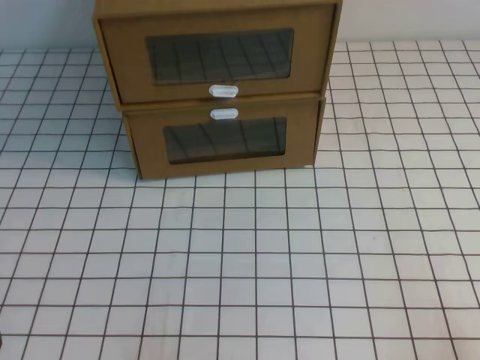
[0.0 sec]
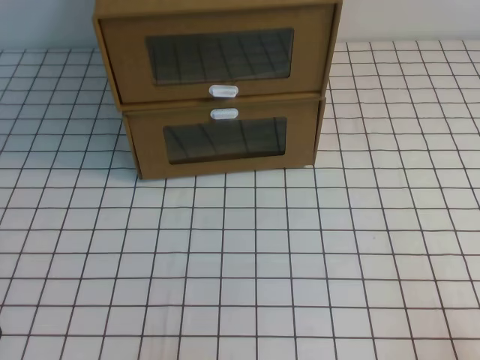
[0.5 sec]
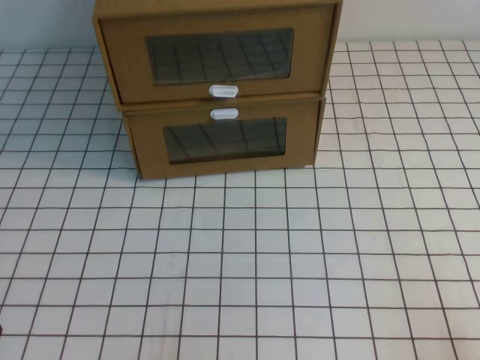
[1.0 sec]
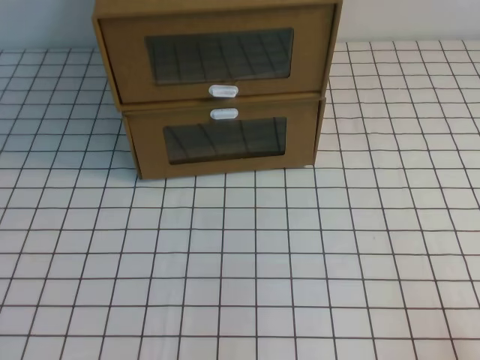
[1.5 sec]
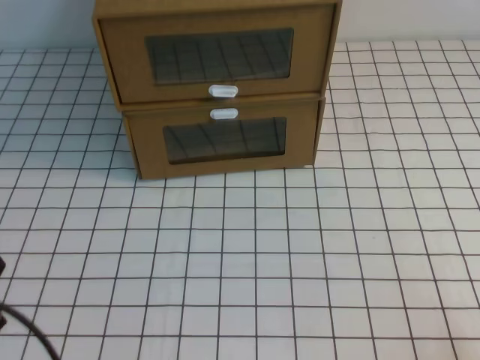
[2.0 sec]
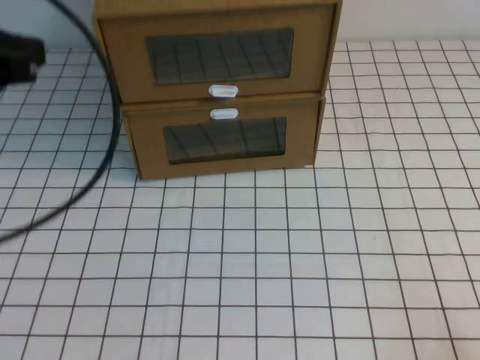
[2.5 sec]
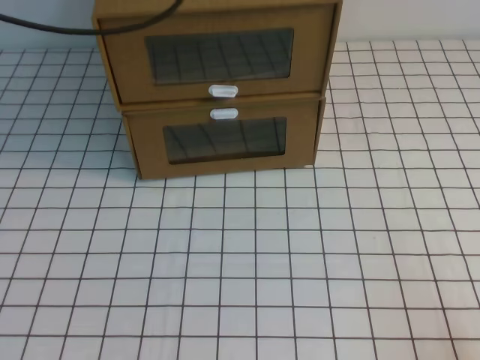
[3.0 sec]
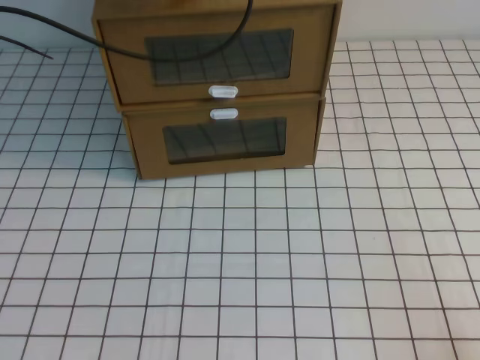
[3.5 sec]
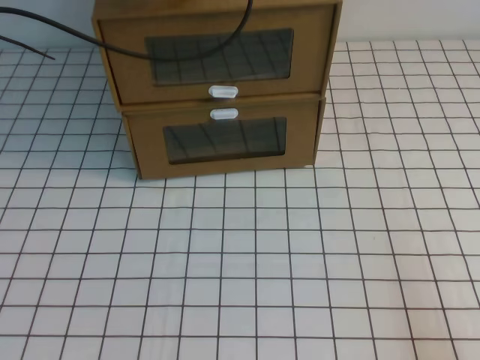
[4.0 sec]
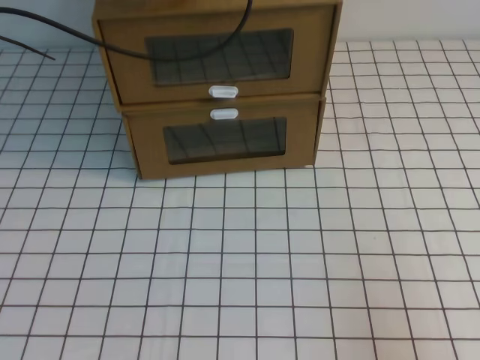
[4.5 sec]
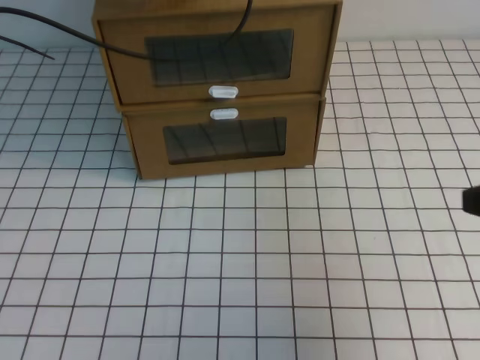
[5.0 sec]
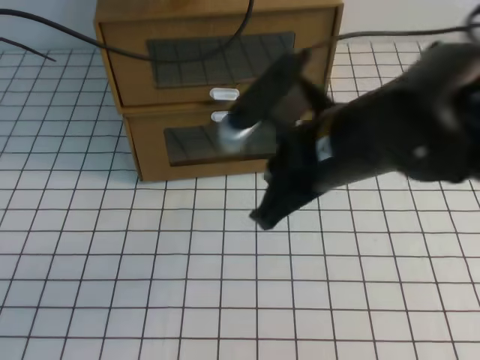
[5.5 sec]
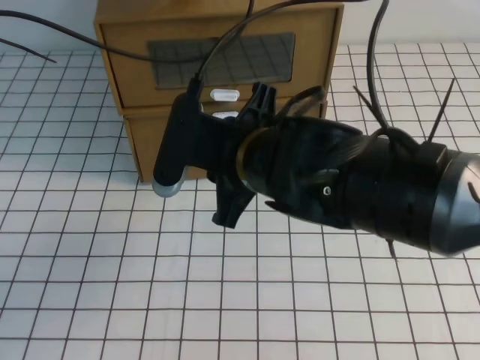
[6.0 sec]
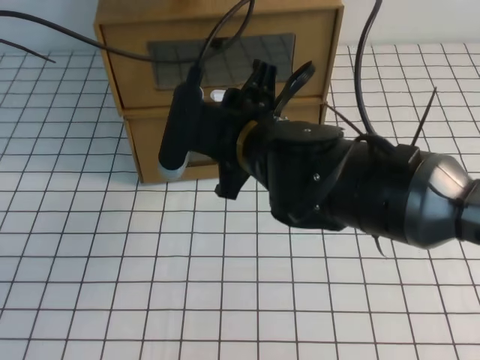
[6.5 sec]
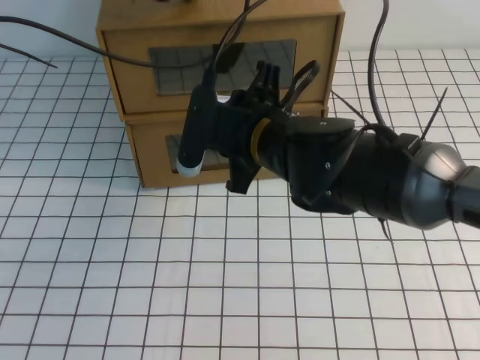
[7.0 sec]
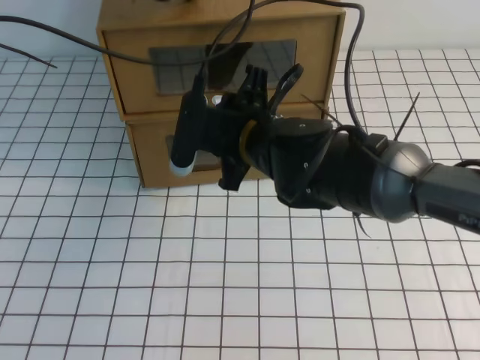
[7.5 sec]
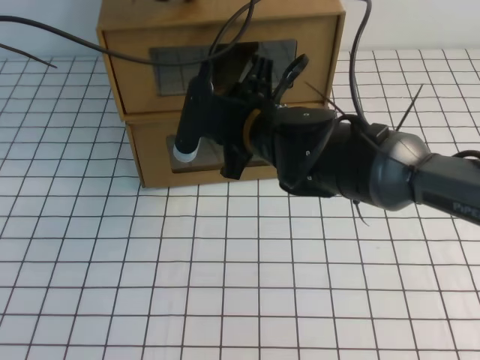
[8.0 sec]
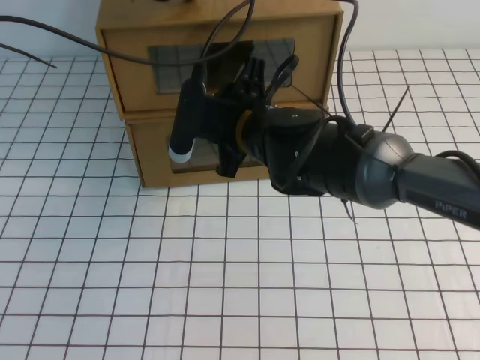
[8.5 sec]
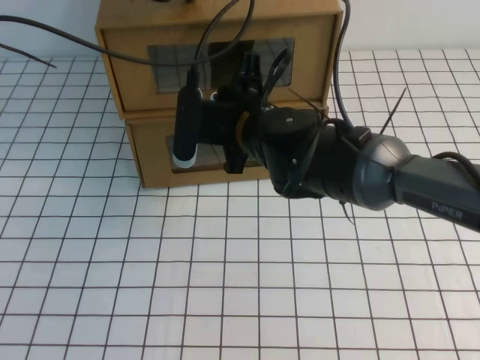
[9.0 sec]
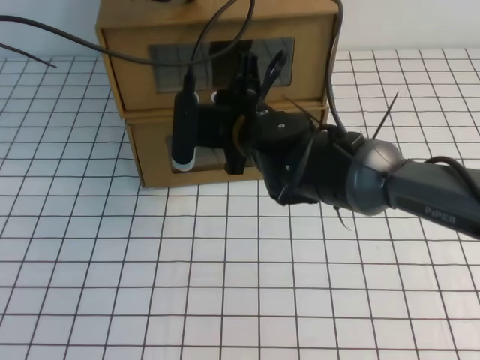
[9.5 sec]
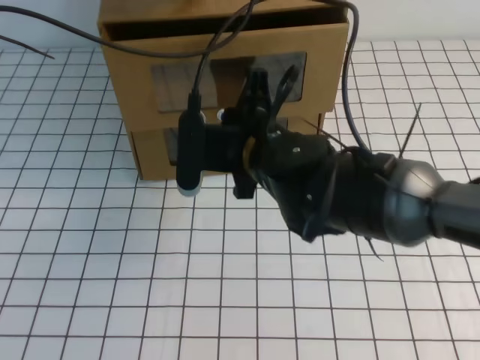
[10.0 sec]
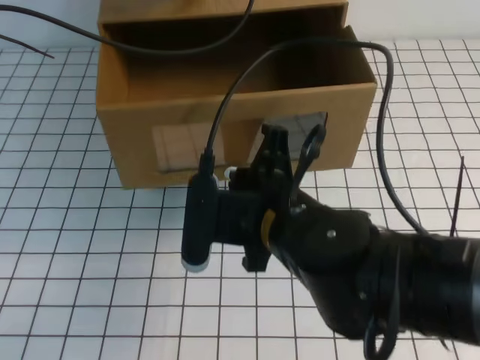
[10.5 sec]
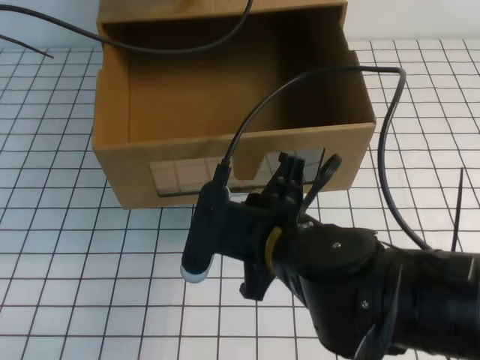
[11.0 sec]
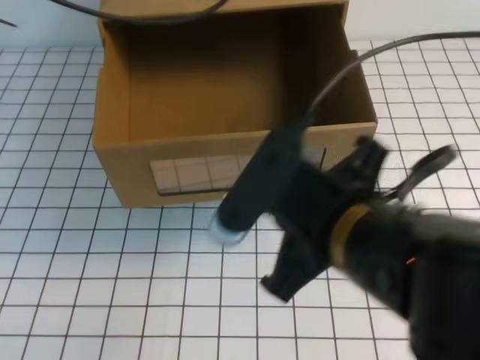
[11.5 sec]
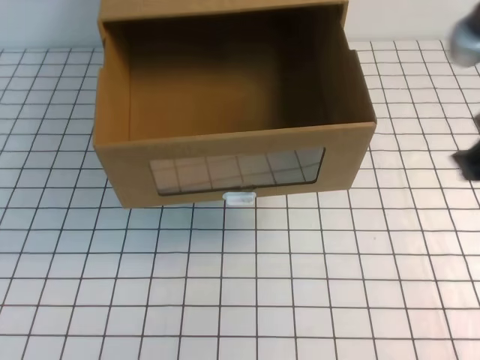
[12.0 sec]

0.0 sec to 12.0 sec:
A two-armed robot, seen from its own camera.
Task of the whole recording: open the shoebox on the white tablecloth.
2.0 sec to 4.0 sec: The left gripper heads forward and upward, covering roughly 40 cm.
4.0 sec to 6.0 sec: The right gripper travels to the left and forward by roughly 35 cm.
6.0 sec to 8.0 sec: The right gripper moves forward, roughly 10 cm, and opens up.
8.0 sec to 10.0 sec: The right gripper closes up.
10.0 sec to 12.0 sec: The right gripper is displaced to the right, backward and upward by approximately 25 cm. The left gripper heads upward and backward, covering roughly 20 cm.

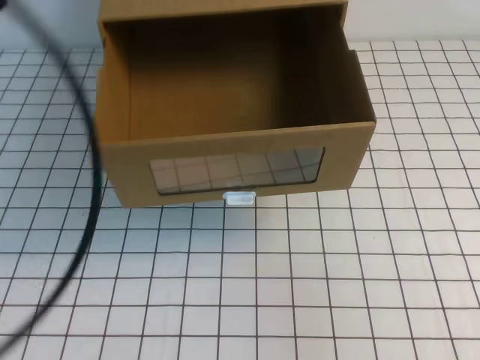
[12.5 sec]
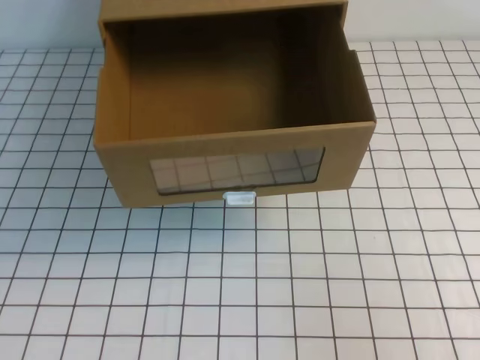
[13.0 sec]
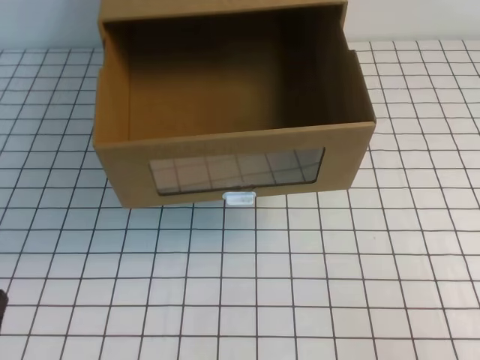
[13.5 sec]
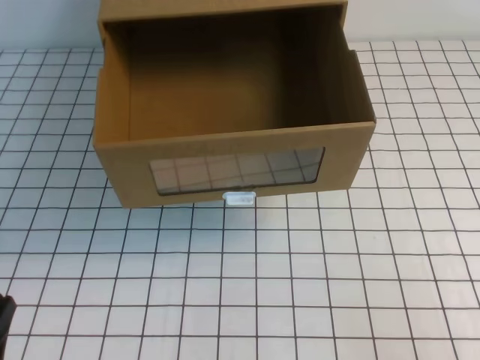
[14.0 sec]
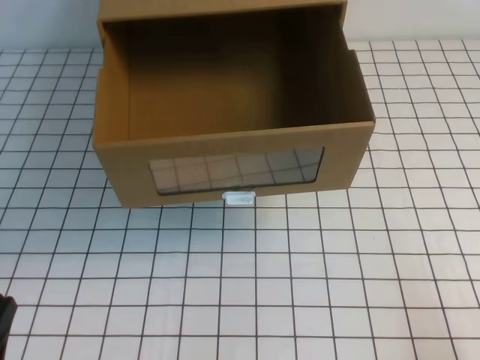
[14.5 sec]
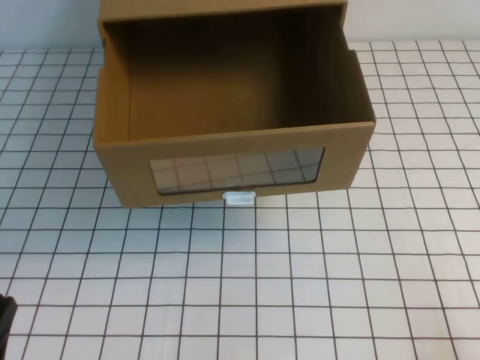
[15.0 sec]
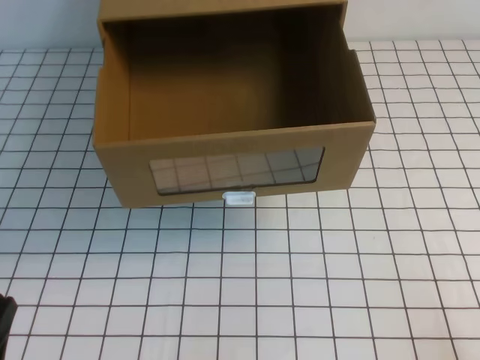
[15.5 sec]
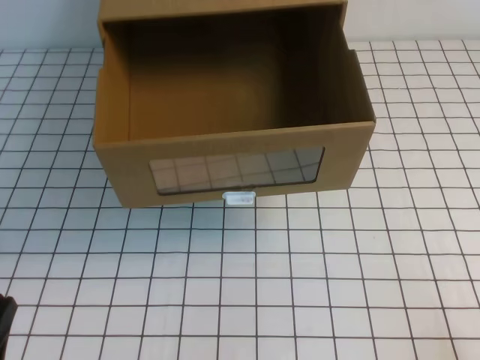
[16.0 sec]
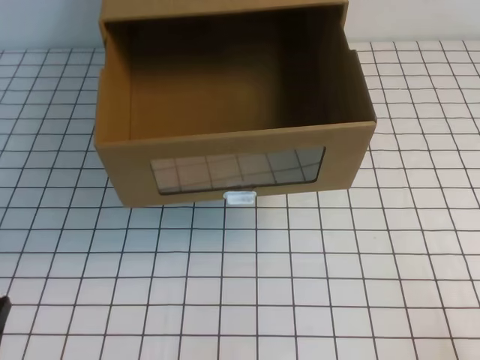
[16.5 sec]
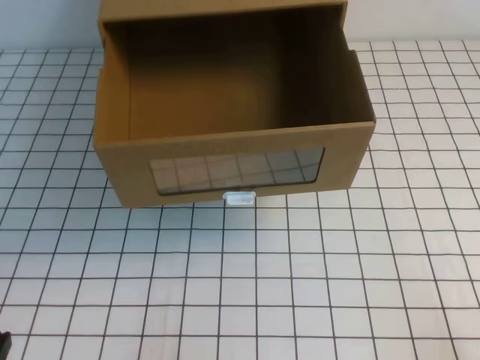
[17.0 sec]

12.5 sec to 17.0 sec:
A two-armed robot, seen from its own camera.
Task of the whole recording: open the shoebox on the white tablecloth.
Step, 12.5 sec to 17.0 sec: Open the shoe box.
12.5 sec to 14.5 sec: The left gripper heads downward and backward, covering approximately 35 cm. Meanwhile the right gripper shifts some 20 cm downward.

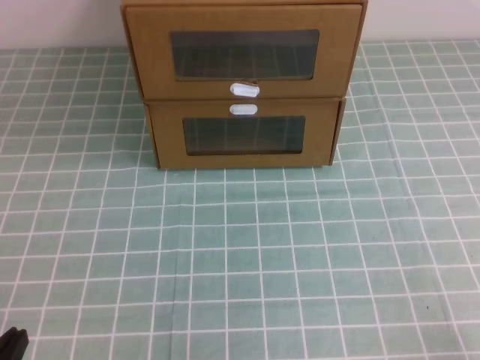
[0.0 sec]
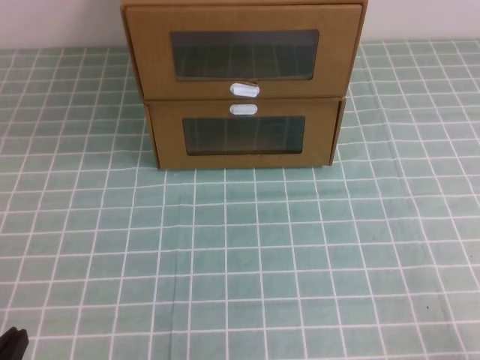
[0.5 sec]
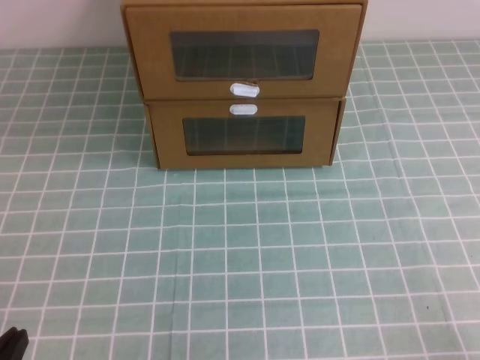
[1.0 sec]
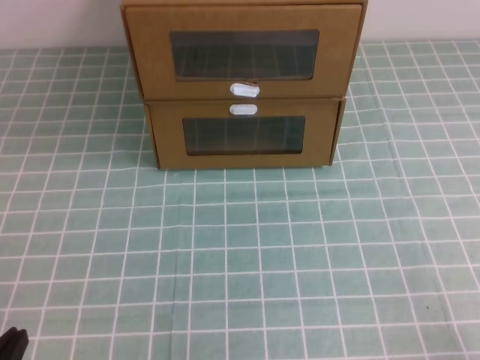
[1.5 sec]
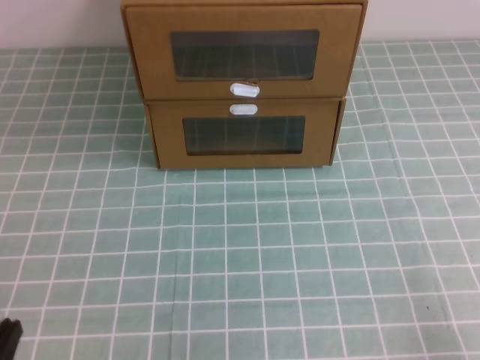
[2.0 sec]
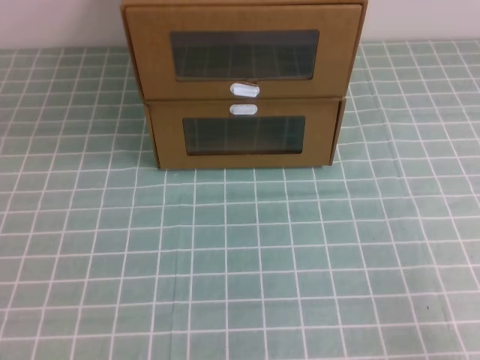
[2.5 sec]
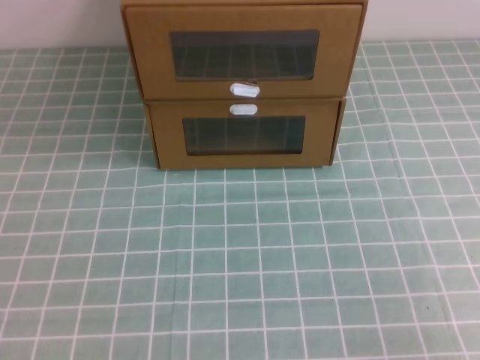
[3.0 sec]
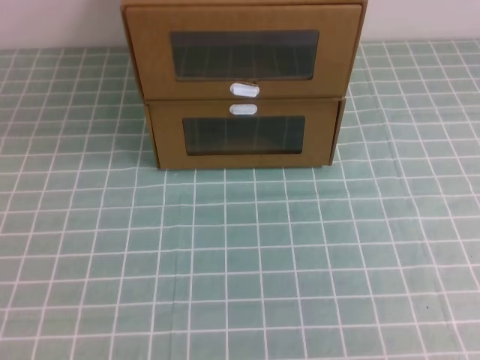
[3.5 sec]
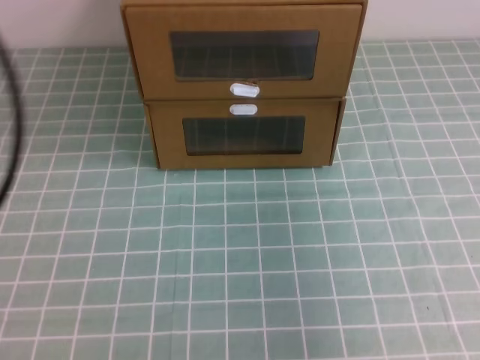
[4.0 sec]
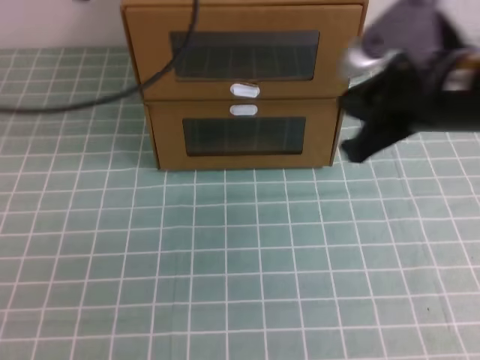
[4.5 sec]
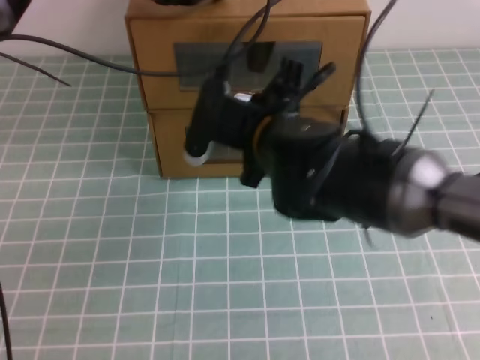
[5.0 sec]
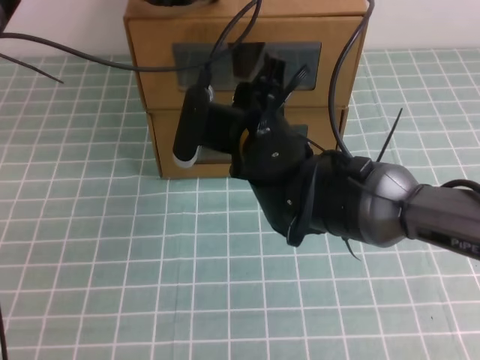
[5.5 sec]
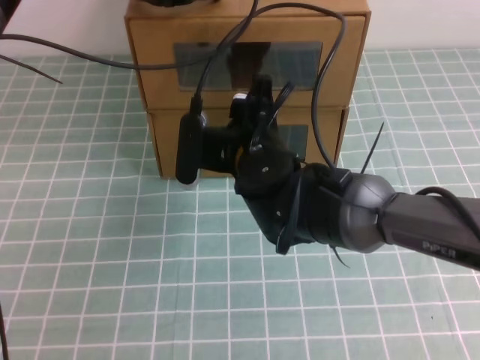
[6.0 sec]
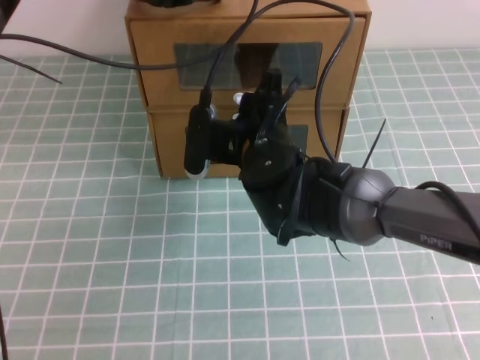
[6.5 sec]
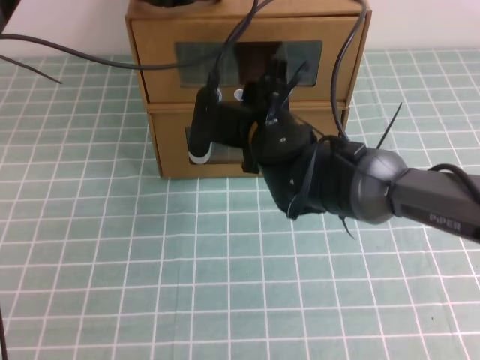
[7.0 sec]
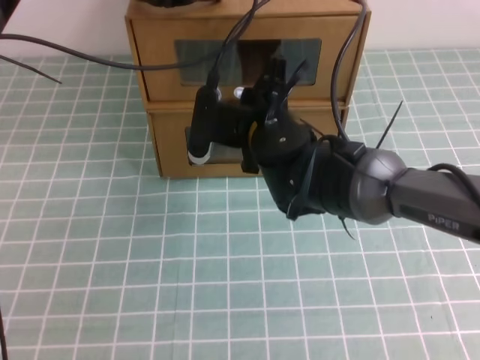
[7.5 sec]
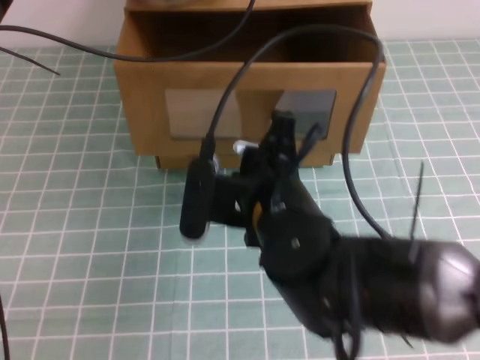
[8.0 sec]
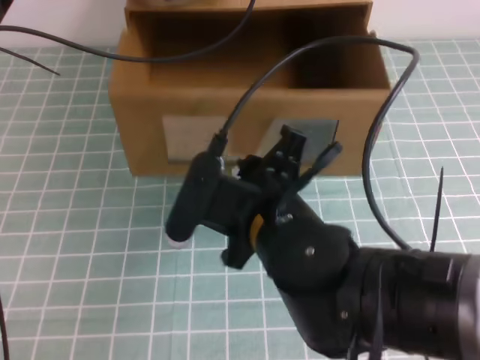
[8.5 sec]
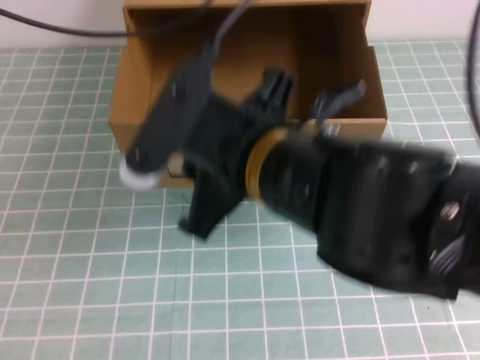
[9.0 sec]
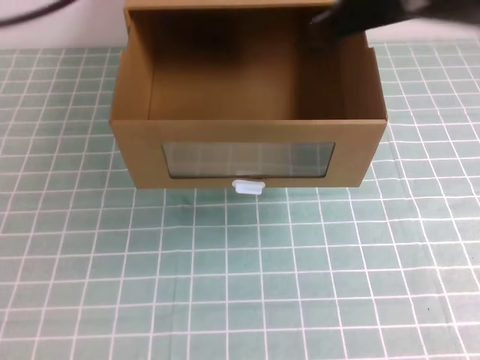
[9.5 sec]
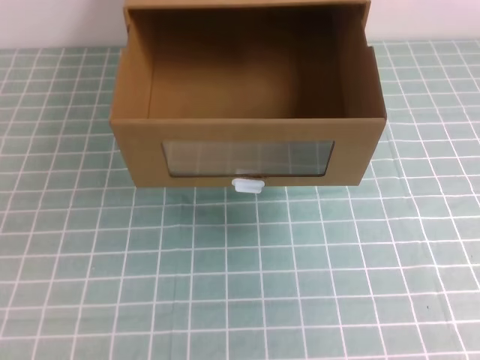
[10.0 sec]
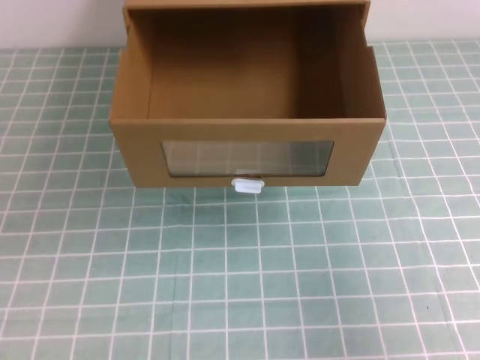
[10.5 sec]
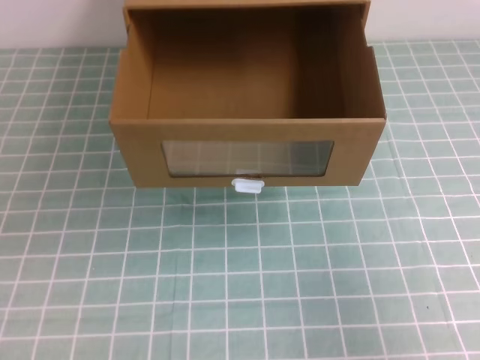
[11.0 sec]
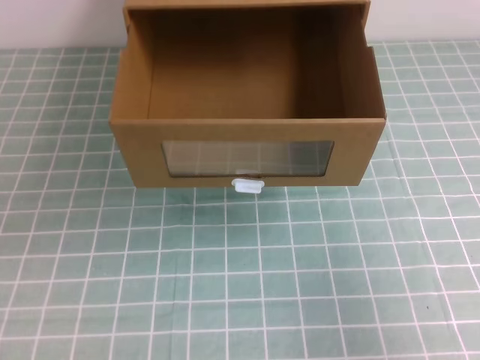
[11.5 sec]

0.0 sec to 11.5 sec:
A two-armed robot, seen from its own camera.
Task of the whole recording: open the shoebox on the cyan tablecloth.
2.0 sec to 4.0 sec: Both grippers move upward, some 25 cm.
4.0 sec to 6.0 sec: The right gripper heads to the left, forward and downward, covering some 40 cm, and opens. The left gripper travels forward and to the right by roughly 30 cm.
6.0 sec to 7.5 sec: The right gripper closes.
7.5 sec to 9.5 sec: The left gripper moves backward, upward and to the left, roughly 30 cm, while the right gripper moves upward, to the right and backward, approximately 25 cm, and opens and closes again.
9.5 sec to 11.5 sec: The left gripper moves downward and backward, some 30 cm; the right gripper heads backward, to the right and downward, covering roughly 30 cm.
